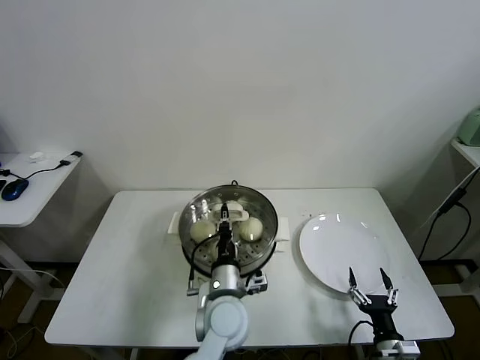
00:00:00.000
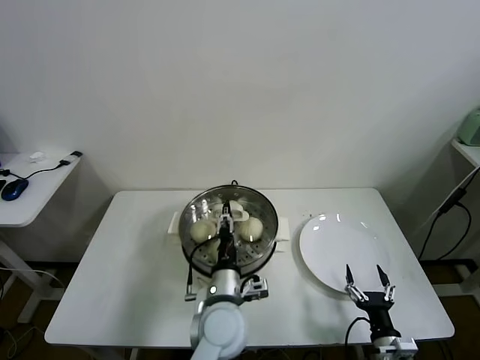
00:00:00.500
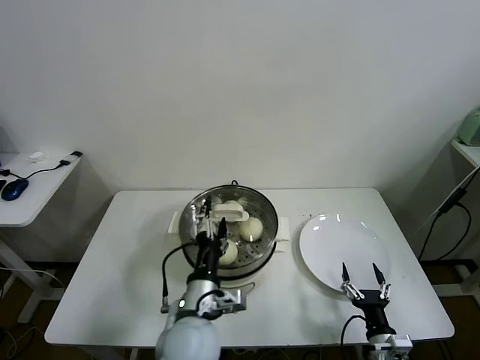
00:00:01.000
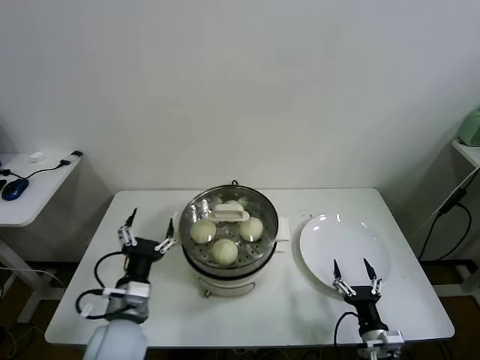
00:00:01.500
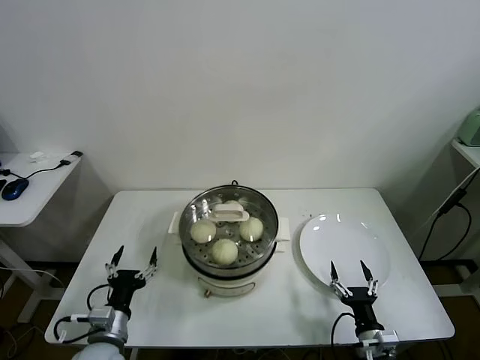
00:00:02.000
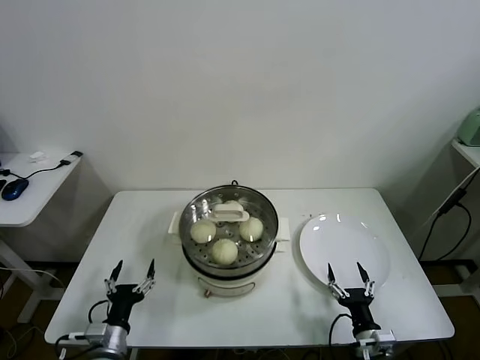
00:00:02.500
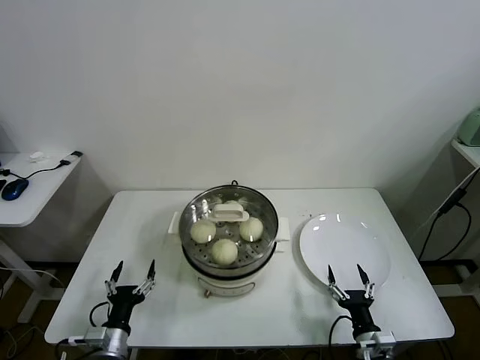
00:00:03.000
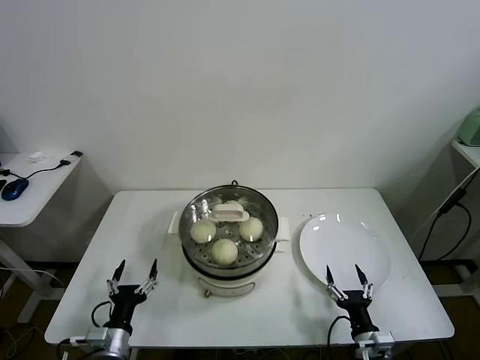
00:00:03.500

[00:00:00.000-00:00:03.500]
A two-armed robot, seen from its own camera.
Task of the whole recording: take steamed baozi put them in steamer.
00:00:00.000 to 00:00:02.000: The left gripper moves to the left, some 25 cm, and opens.
00:00:02.000 to 00:00:03.500: The left gripper is displaced downward by roughly 5 cm.

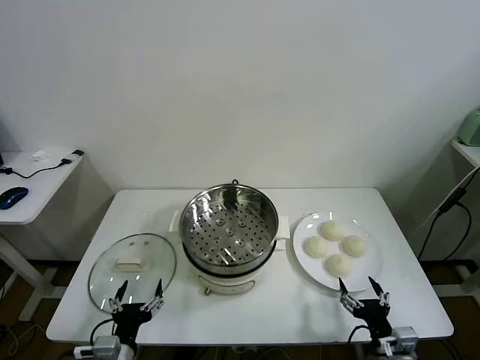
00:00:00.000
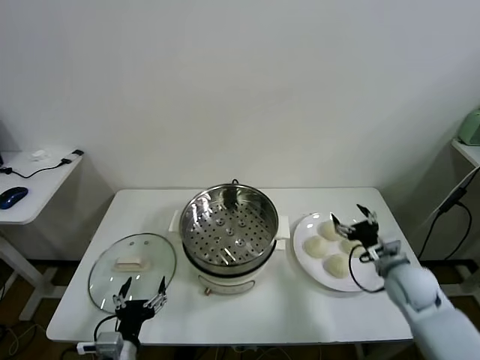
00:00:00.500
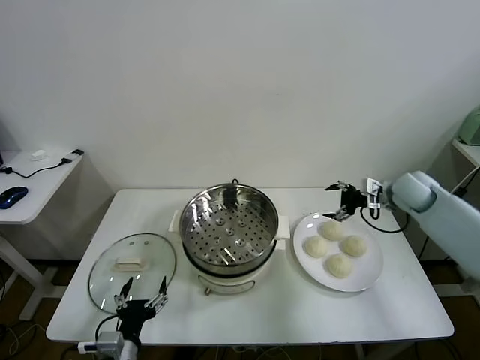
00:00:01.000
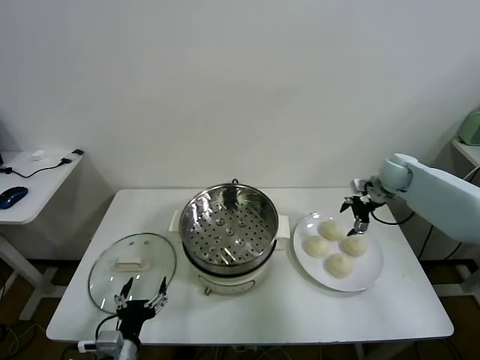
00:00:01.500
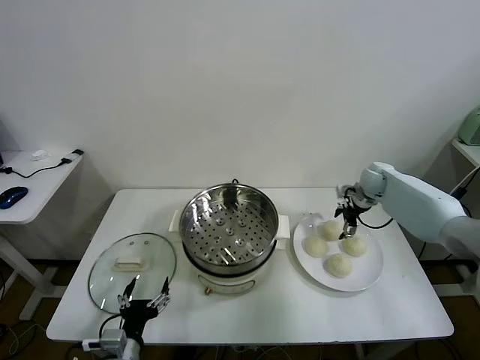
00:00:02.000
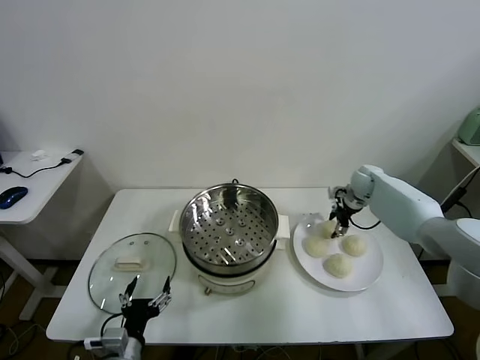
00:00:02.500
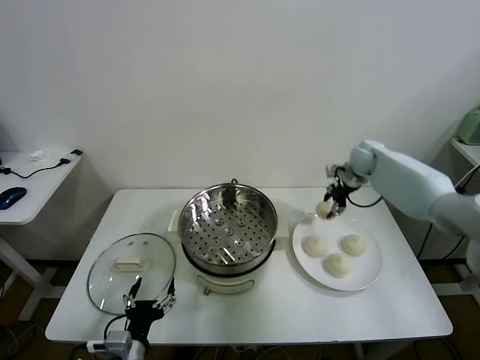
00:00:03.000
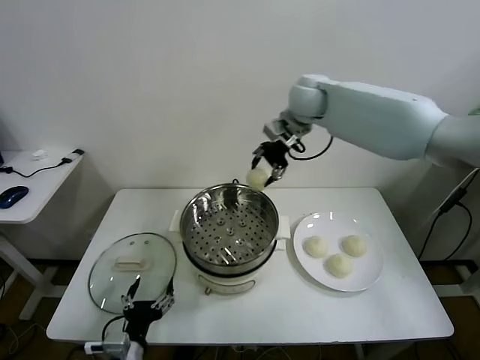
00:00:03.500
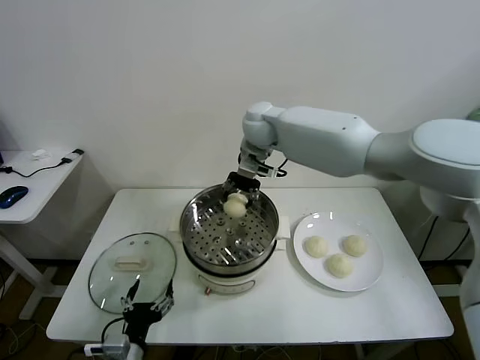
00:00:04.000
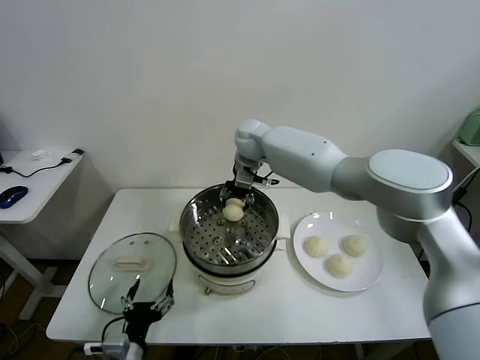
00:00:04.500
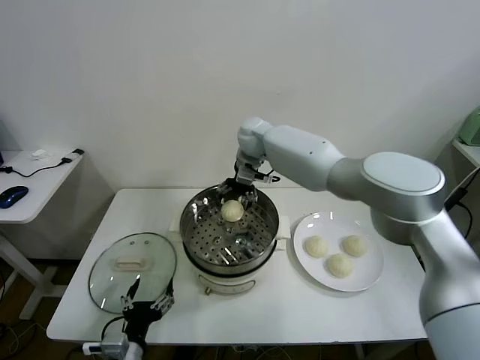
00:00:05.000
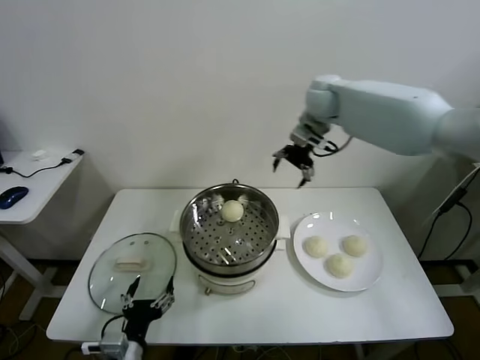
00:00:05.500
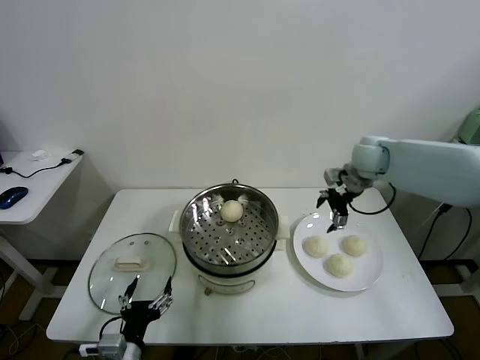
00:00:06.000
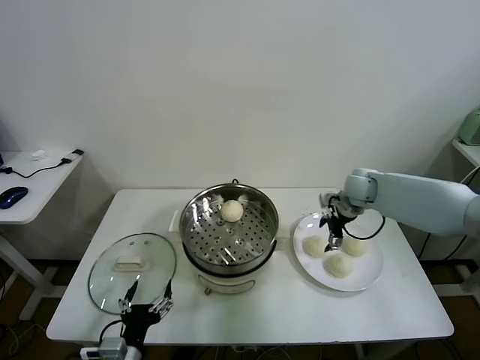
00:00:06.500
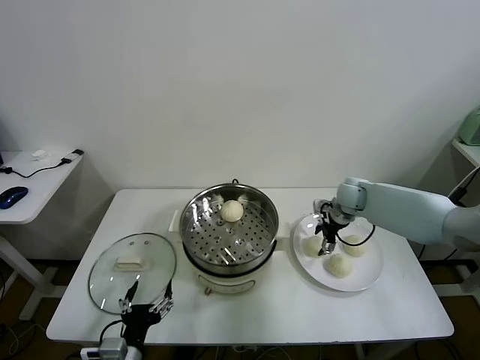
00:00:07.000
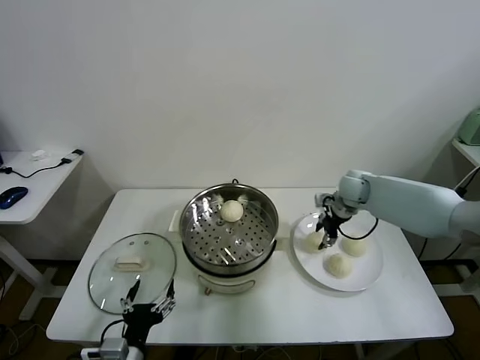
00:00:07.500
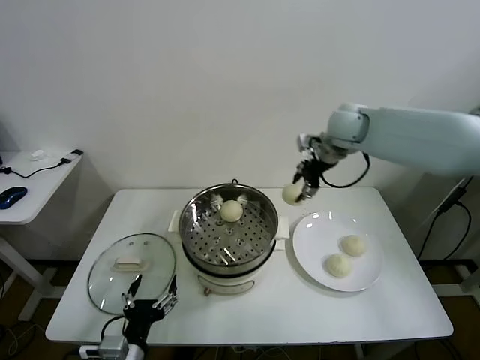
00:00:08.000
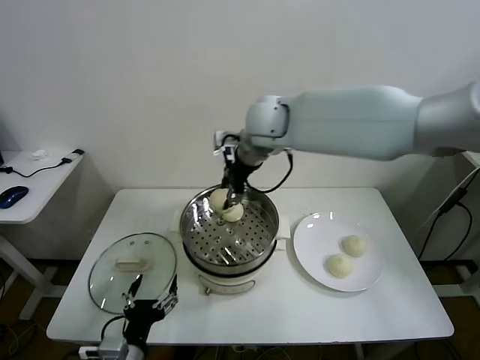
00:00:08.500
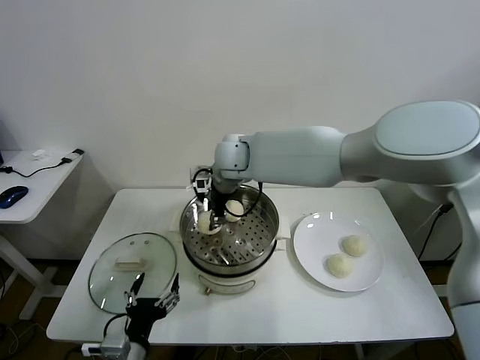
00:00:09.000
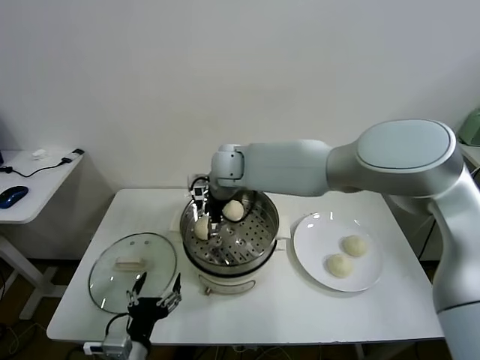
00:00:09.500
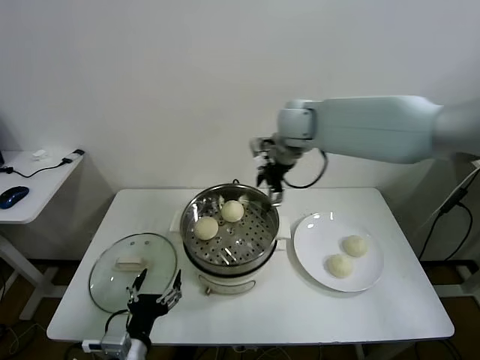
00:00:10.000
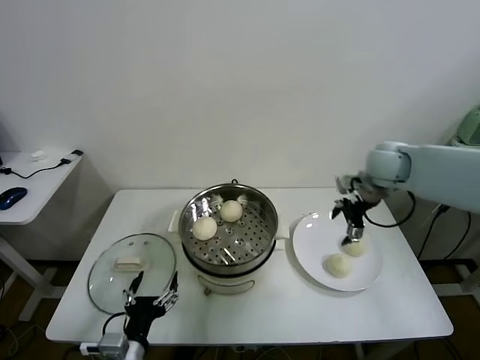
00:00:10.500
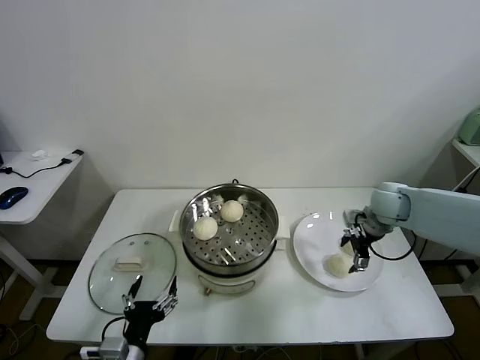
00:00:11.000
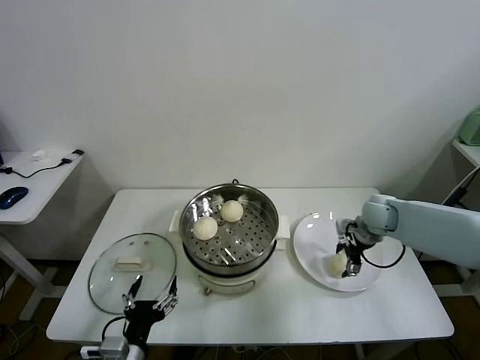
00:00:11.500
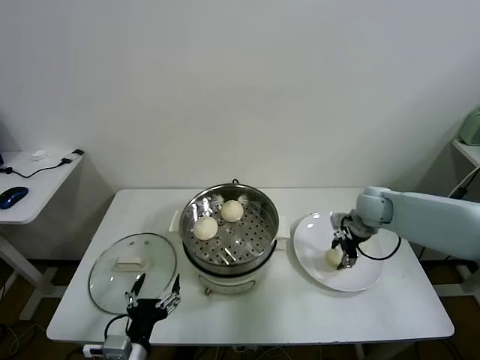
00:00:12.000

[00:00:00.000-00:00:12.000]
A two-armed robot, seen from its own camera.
Task of the whole recording: take steamed baozi put them in steamer.
Step, 00:00:00.000 to 00:00:02.500: Grasp the baozi in the plate with right gripper.
Step, 00:00:03.000 to 00:00:04.500: Place the baozi on the steamer with right gripper.
Step, 00:00:05.000 to 00:00:07.000: Grasp the baozi in the plate with right gripper.
Step, 00:00:07.500 to 00:00:09.000: Place the baozi on the steamer with right gripper.
Step, 00:00:09.500 to 00:00:11.500: Grasp the baozi in the plate with right gripper.
00:00:02.000 to 00:00:04.000: The right gripper goes some 40 cm to the left and upward, and closes.
00:00:04.000 to 00:00:06.000: The right gripper moves to the right, roughly 25 cm, and opens.
00:00:06.000 to 00:00:08.000: The right gripper shifts some 20 cm upward and to the left, and closes up.
00:00:08.000 to 00:00:10.000: The right gripper reaches some 20 cm to the left, then returns, and opens up.
00:00:10.000 to 00:00:12.000: The right gripper travels downward and to the right by about 25 cm, and closes up.

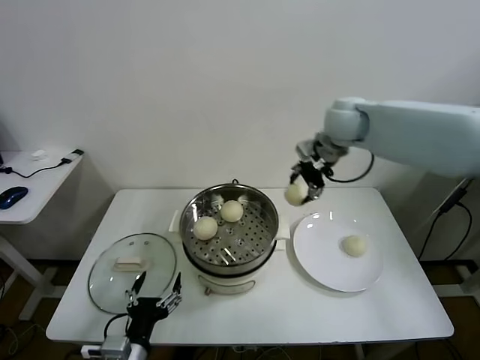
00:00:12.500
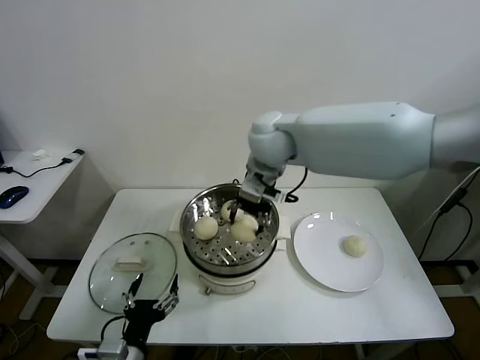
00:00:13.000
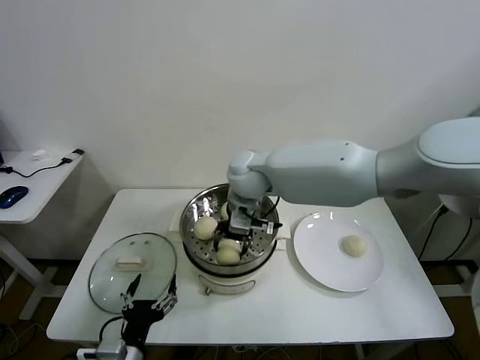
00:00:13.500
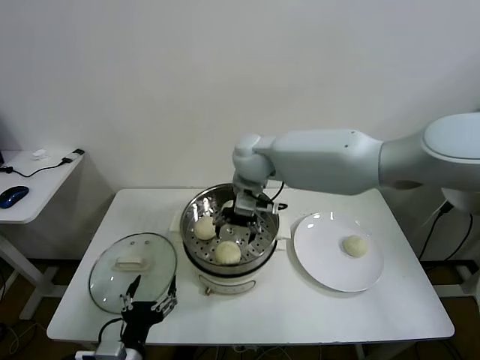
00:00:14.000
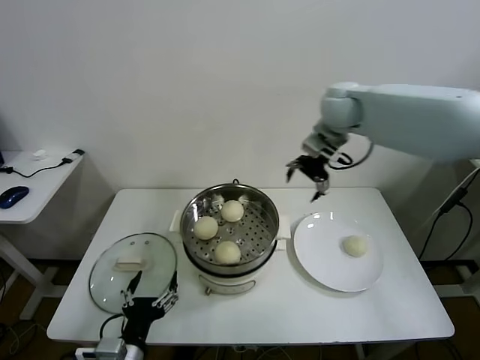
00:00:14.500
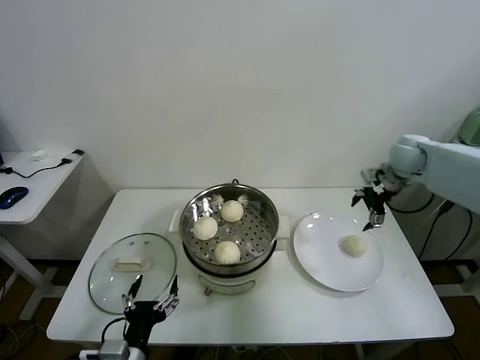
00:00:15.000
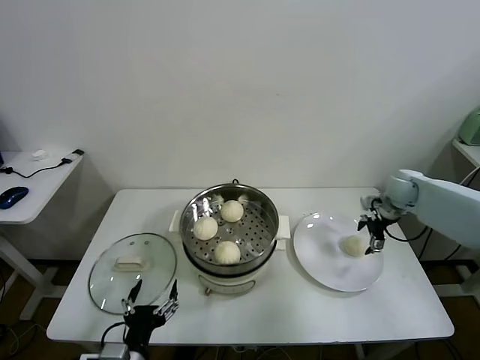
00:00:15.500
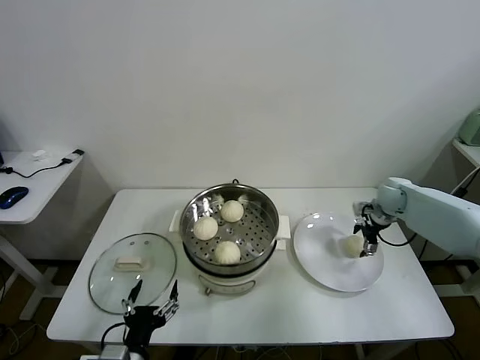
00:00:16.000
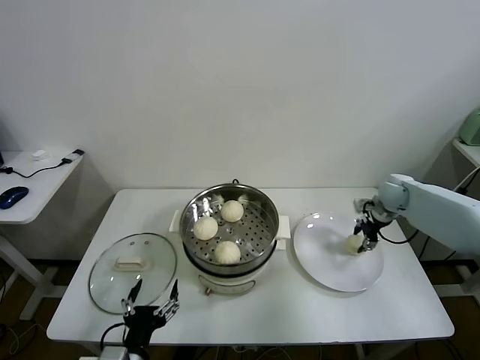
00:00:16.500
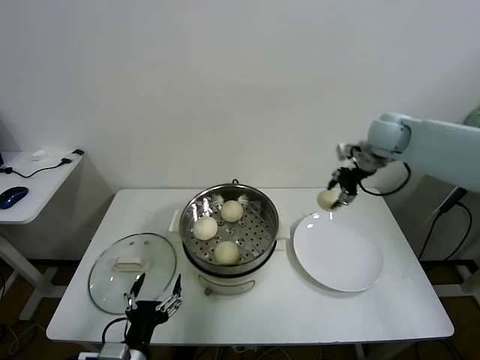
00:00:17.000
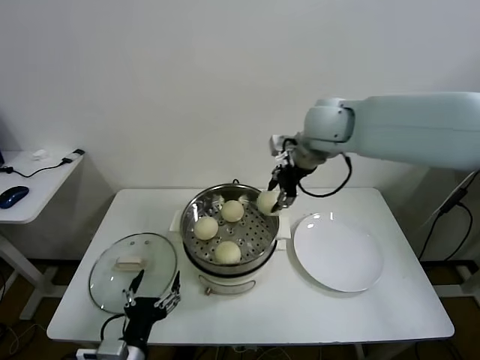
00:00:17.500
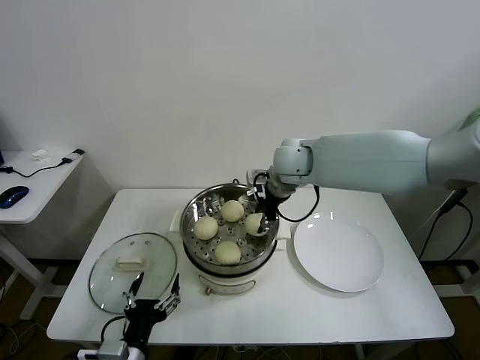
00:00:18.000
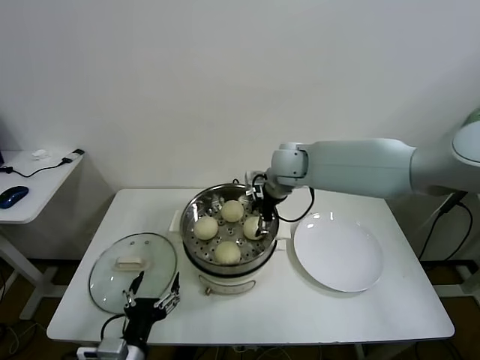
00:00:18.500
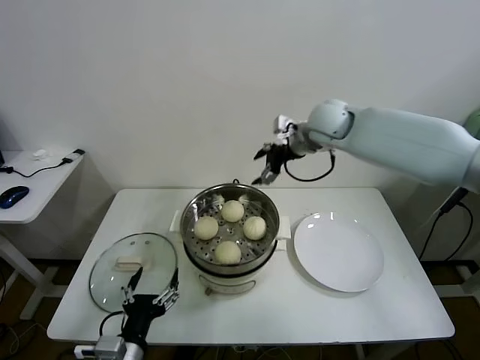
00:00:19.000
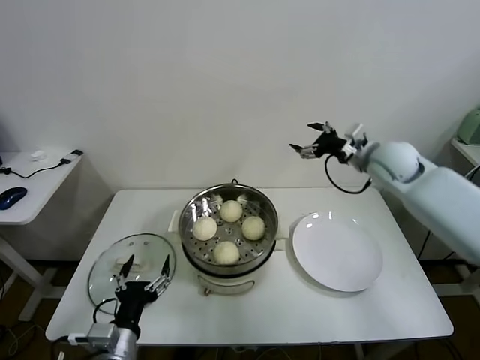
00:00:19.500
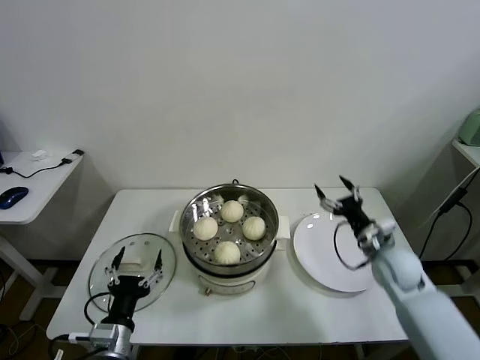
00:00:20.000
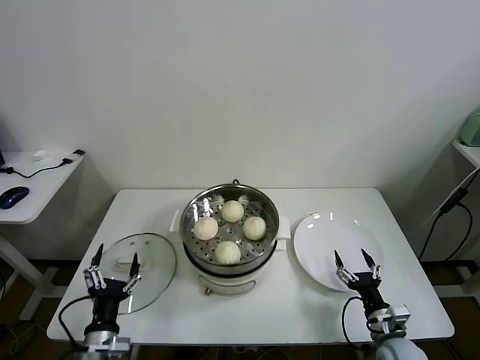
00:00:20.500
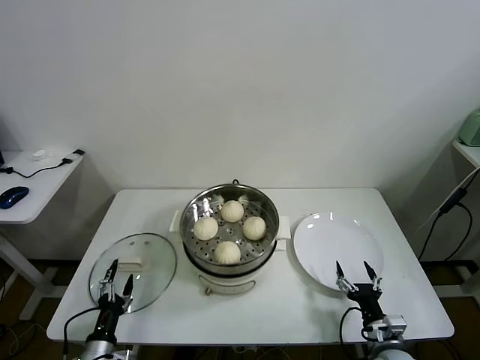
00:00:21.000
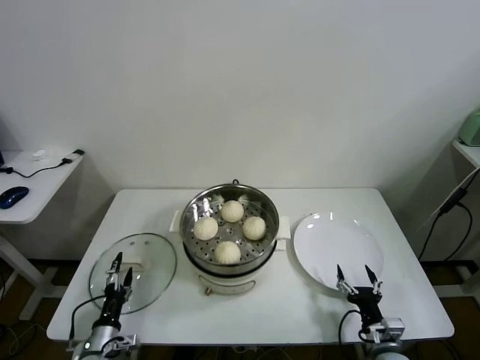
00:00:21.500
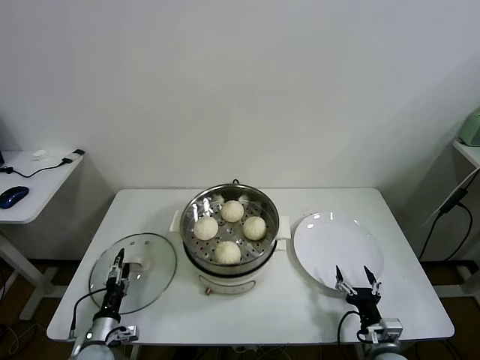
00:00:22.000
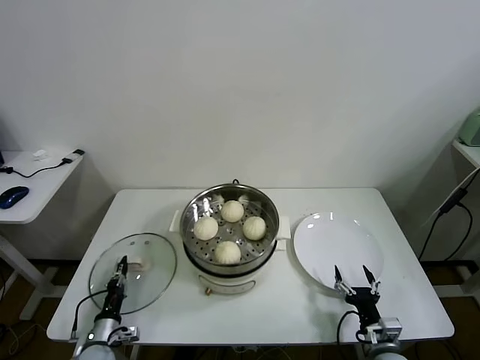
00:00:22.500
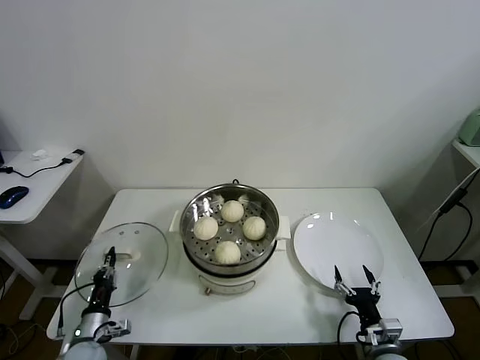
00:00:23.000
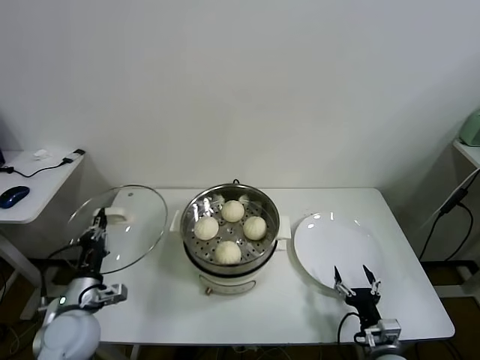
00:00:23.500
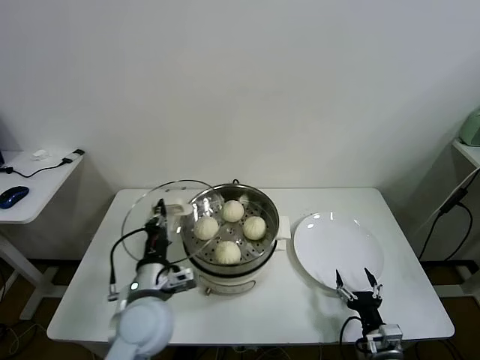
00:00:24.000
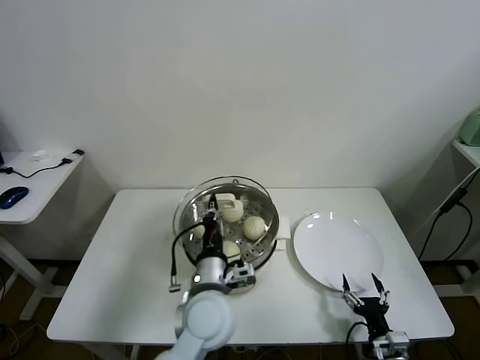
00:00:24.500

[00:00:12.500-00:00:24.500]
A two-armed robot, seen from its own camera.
Task of the whole recording: take steamed baozi put them in steamer.
Step, 00:00:12.500 to 00:00:13.500: Place the baozi on the steamer with right gripper.
Step, 00:00:14.000 to 00:00:16.000: Grasp the baozi in the plate with right gripper.
Step, 00:00:16.500 to 00:00:18.500: Place the baozi on the steamer with right gripper.
Step, 00:00:19.000 to 00:00:22.500: Grasp the pot lid with left gripper.
00:00:12.500 to 00:00:14.500: The right gripper moves about 15 cm to the left and comes back, and opens up.
00:00:14.500 to 00:00:16.500: The right gripper goes some 30 cm downward and to the right, and closes its fingers.
00:00:16.500 to 00:00:18.500: The right gripper travels to the left by roughly 30 cm, and opens up.
00:00:18.500 to 00:00:20.500: The left gripper shifts roughly 10 cm to the left and downward. The right gripper travels backward, downward and to the right by approximately 50 cm.
00:00:20.500 to 00:00:22.500: The left gripper is displaced downward, to the left and forward by roughly 15 cm, and closes its fingers.
00:00:22.500 to 00:00:24.500: The left gripper goes approximately 40 cm to the right and upward.
